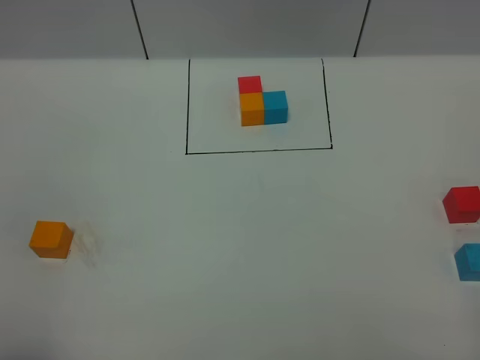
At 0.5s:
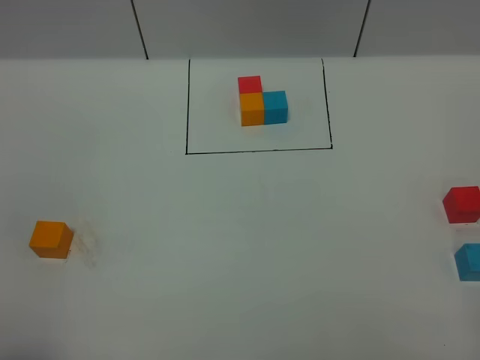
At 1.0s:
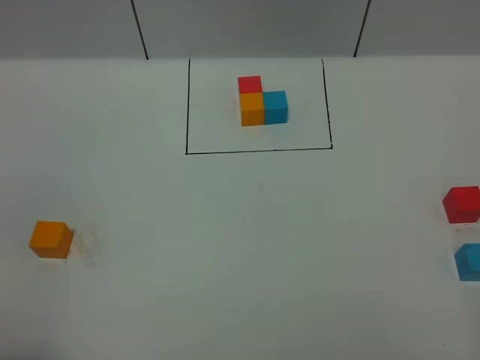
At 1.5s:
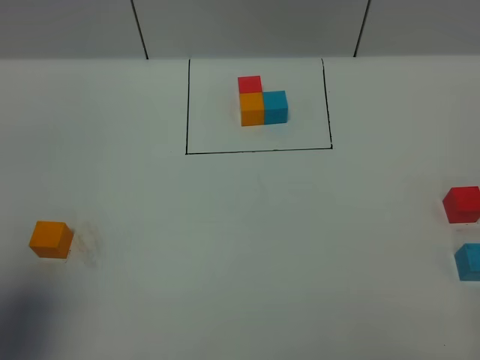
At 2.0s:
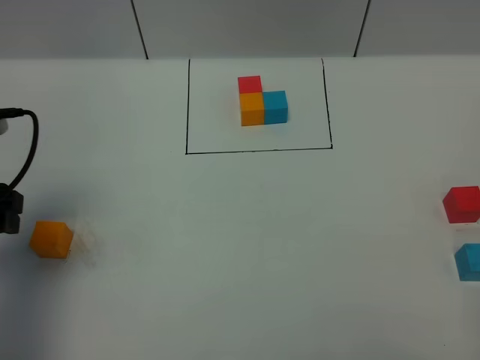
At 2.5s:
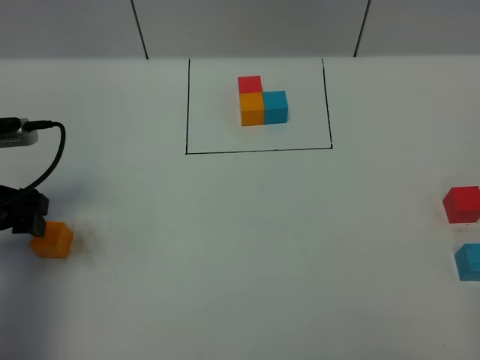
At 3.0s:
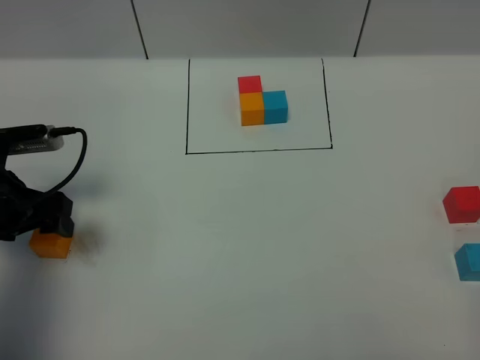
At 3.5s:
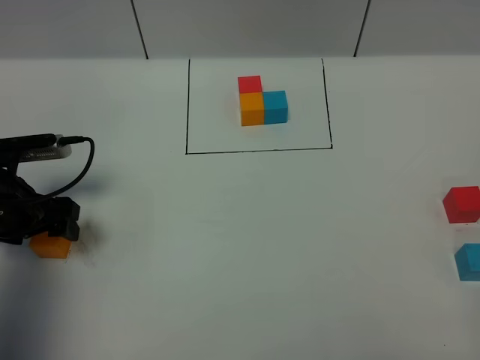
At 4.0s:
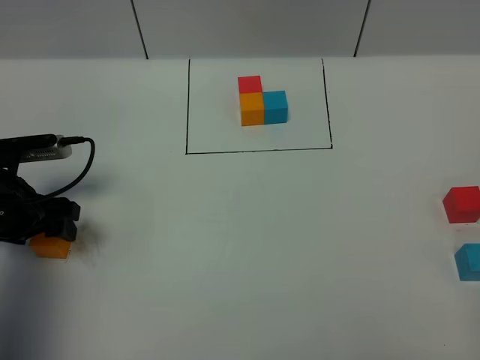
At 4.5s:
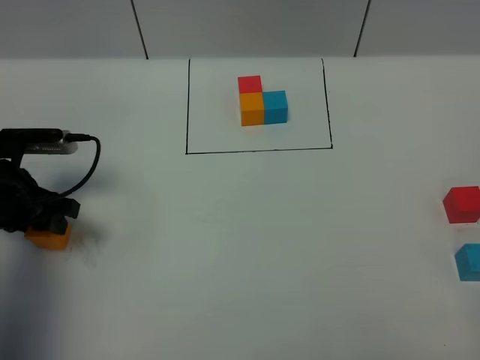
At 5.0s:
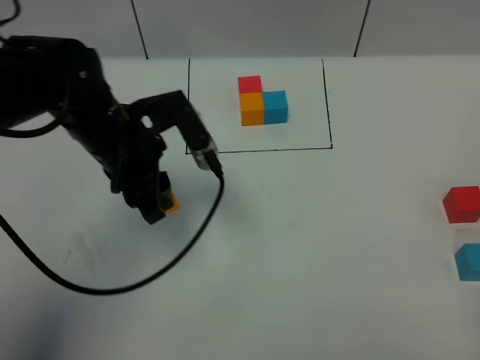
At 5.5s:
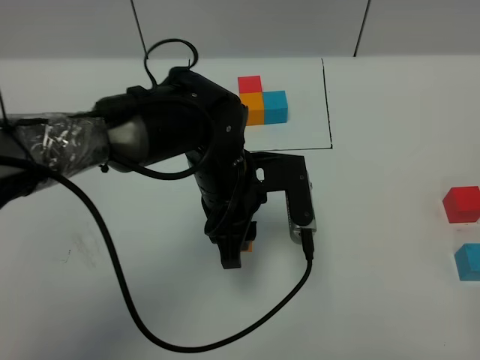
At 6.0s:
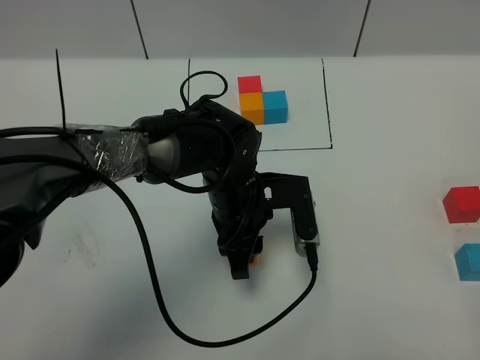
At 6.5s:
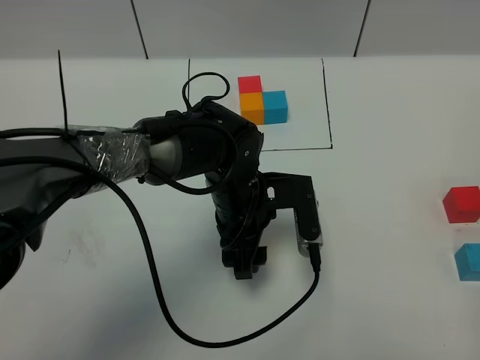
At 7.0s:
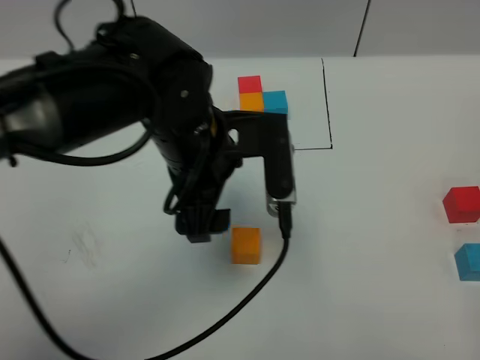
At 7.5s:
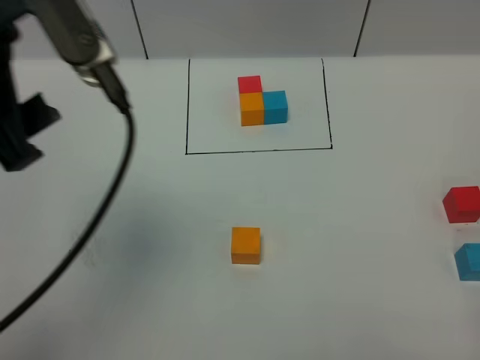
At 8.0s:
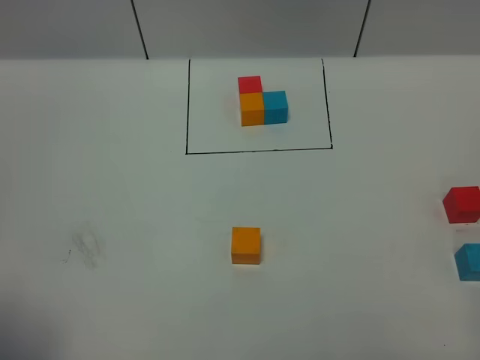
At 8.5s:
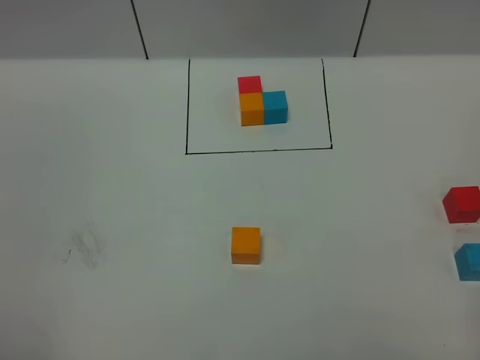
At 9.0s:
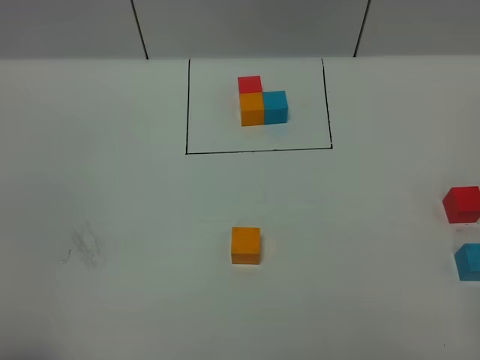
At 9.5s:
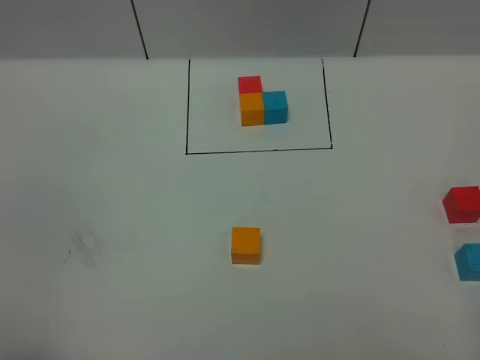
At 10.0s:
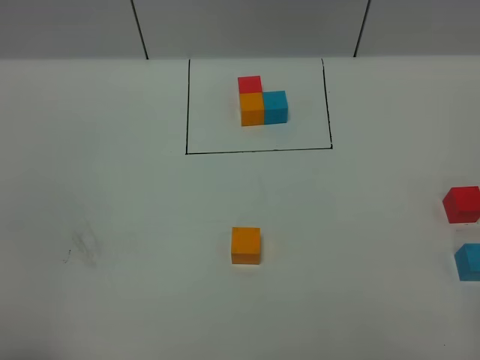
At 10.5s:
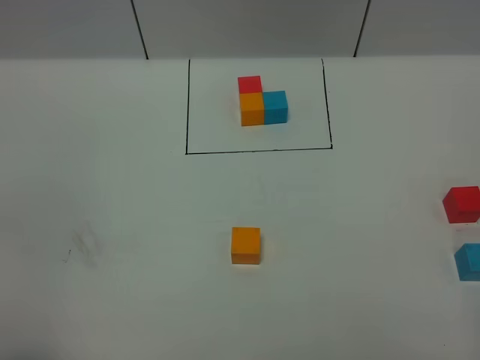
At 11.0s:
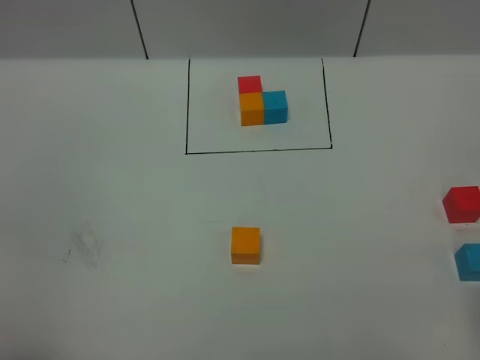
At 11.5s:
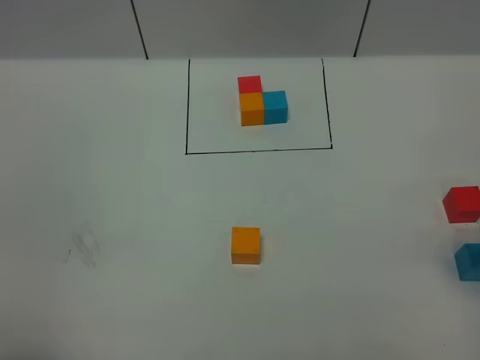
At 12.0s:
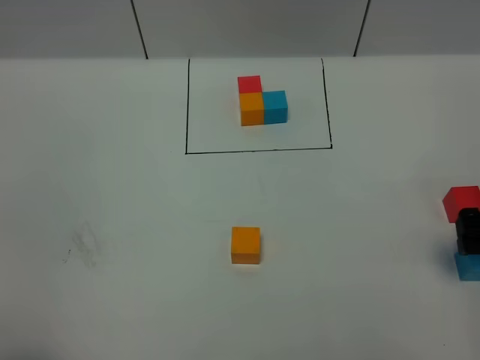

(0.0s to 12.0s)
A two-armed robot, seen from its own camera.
Task of the whole recording: According to the building block template in front, assemble the scattered blocks together.
Step, 2.0s - 6.5s: Put the orange cube in the center of the table.
0.0s - 2.0s: The left gripper travels forward by some 25 cm.
2.0s - 4.0s: The left gripper goes roughly 10 cm downward and forward.
4.0s - 6.0s: The left gripper moves to the right, roughly 30 cm, and closes its fingers.
6.0s - 8.0s: The left gripper heads to the left, upward and backward, covering approximately 50 cm, and opens its fingers.
10.0s - 12.0s: The right gripper goes roughly 25 cm forward and downward, and opens.

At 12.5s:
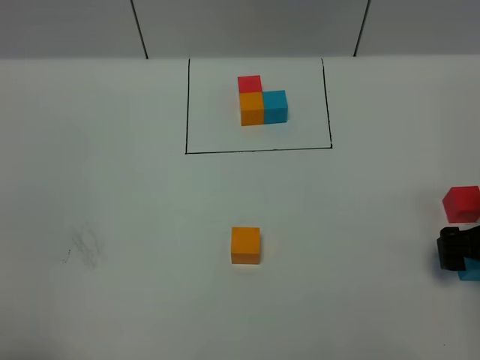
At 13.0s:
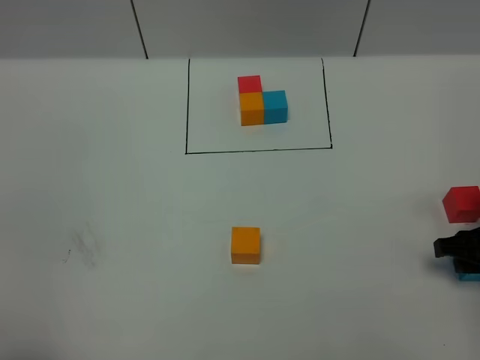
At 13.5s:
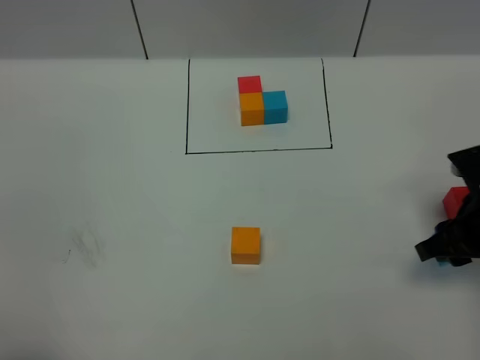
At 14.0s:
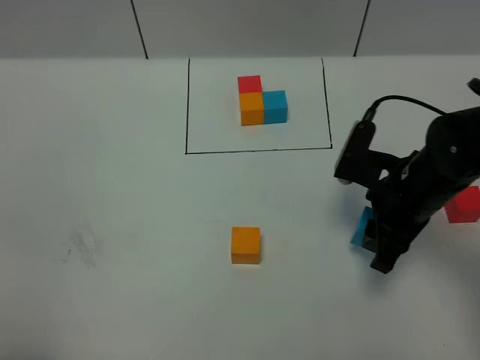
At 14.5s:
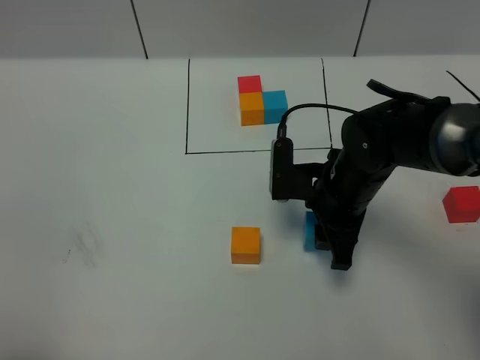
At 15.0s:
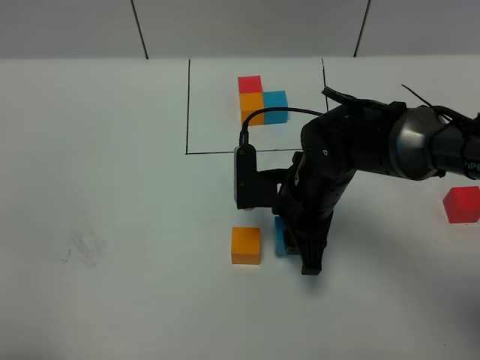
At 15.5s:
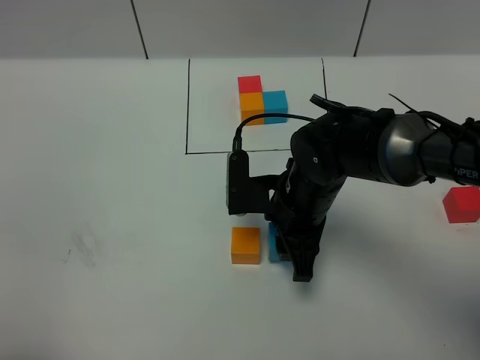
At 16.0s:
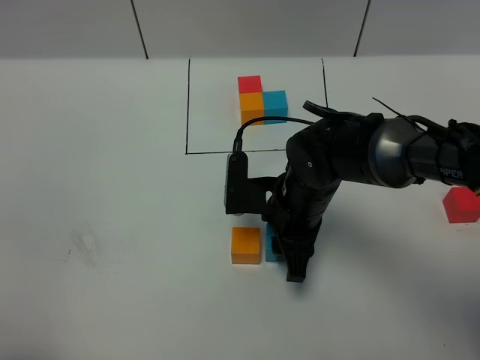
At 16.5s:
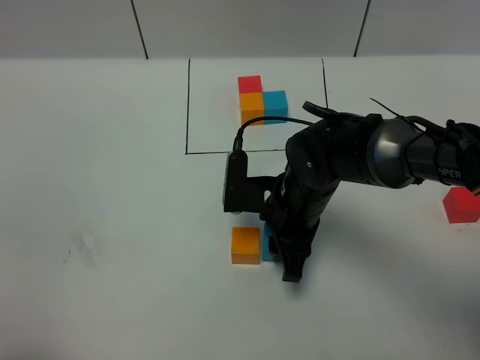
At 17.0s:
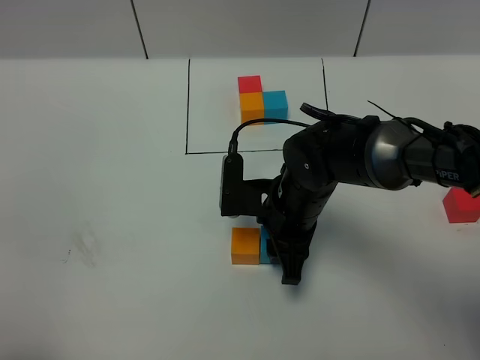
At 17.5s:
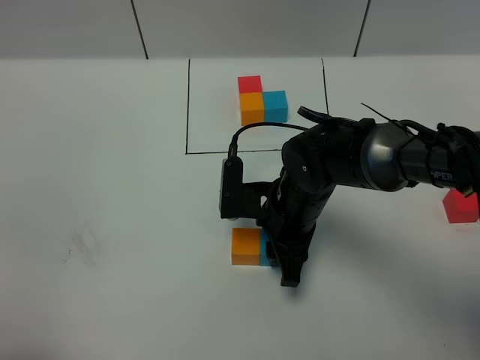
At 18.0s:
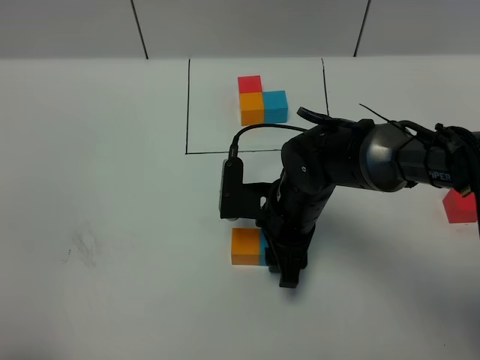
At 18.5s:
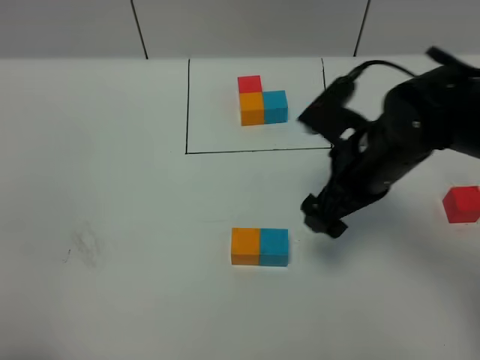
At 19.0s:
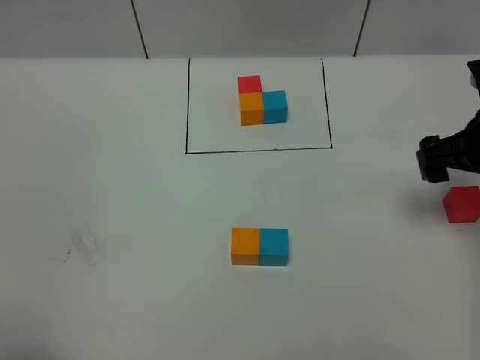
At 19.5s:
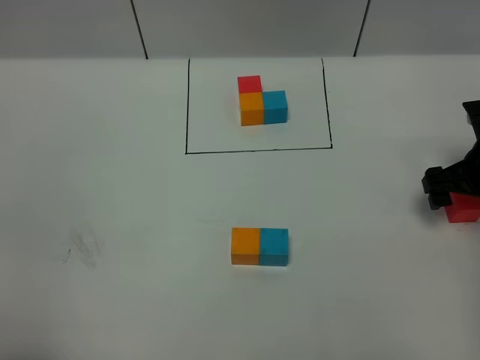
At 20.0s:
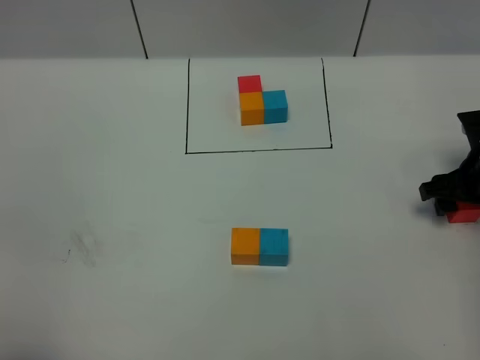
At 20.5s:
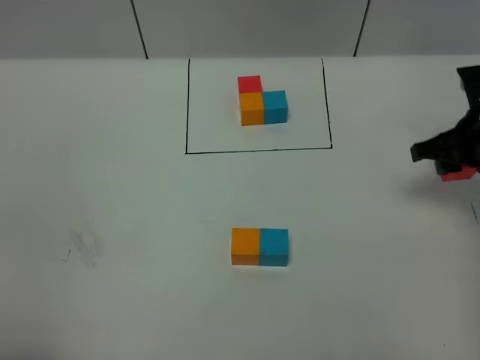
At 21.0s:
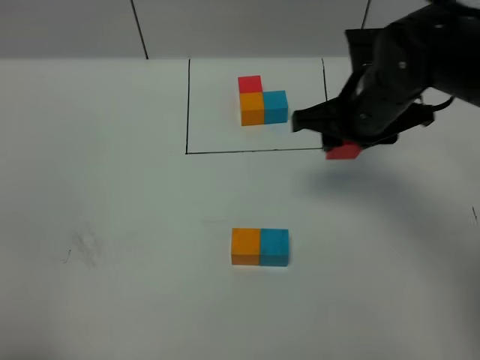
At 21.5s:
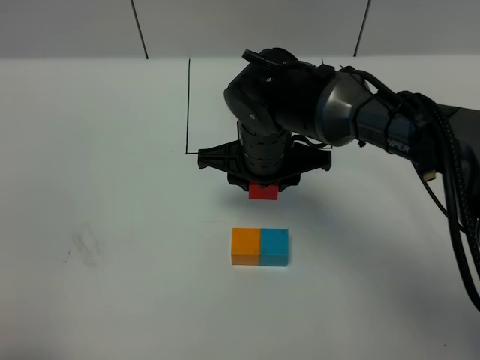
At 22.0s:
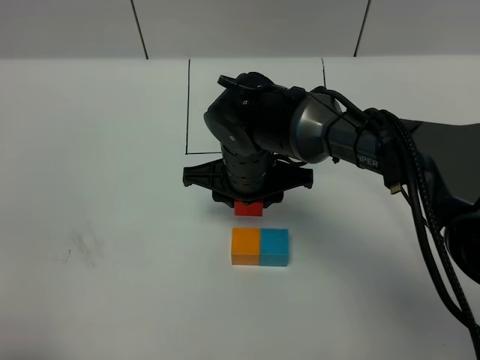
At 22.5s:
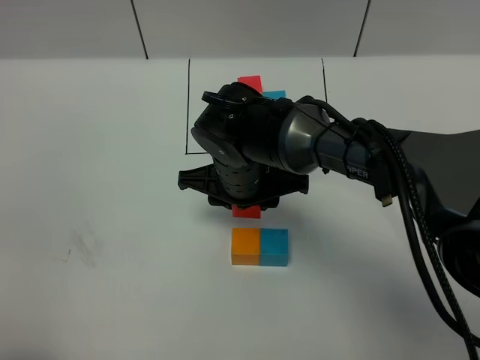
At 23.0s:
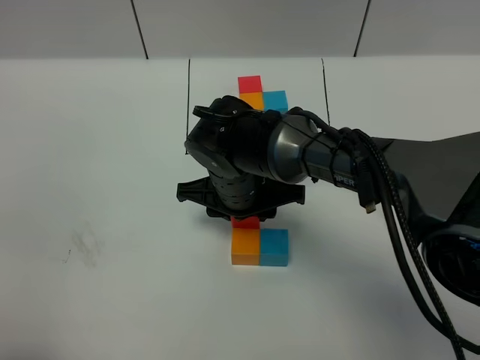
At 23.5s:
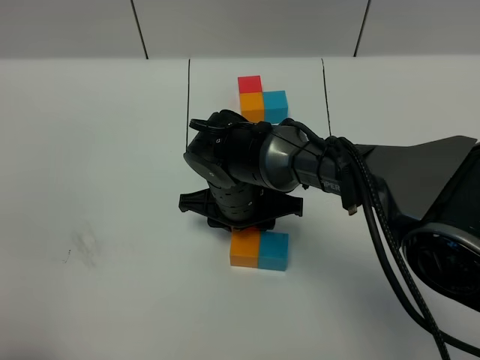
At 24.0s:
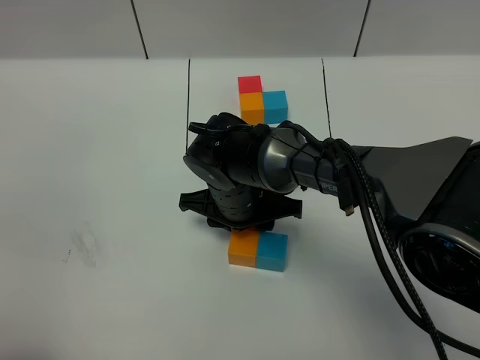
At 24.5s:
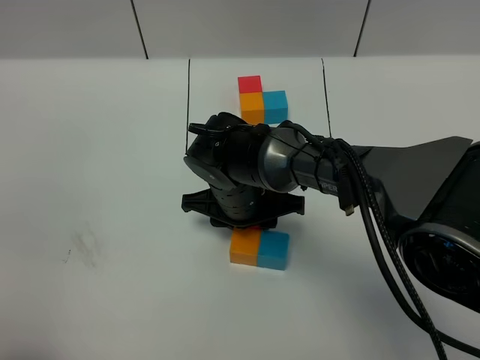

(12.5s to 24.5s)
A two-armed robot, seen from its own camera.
Task of the whole recording: According to the building block template in front, assemble the scattered blocks together.
Step, 12.5s - 18.0s: Put the blue cube on the right of the orange cube.
12.5s - 14.5s: The right gripper goes approximately 20 cm to the left, and closes up.
14.5s - 16.5s: The right gripper travels to the left by some 5 cm.
16.5s - 18.5s: The right gripper travels upward and to the right by approximately 10 cm, and opens.
18.5s - 20.5s: The right gripper travels to the right and forward by about 15 cm, and closes.
20.5s - 22.5s: The right gripper shifts some 30 cm to the left.
22.5s - 24.5s: There are only small adjustments of the grippers.

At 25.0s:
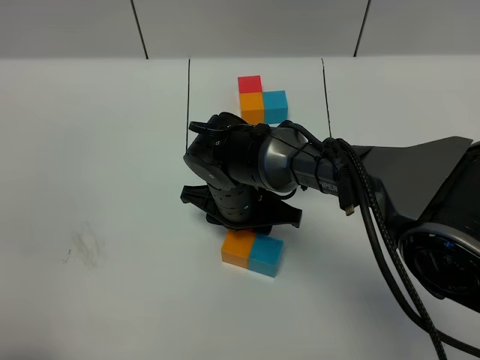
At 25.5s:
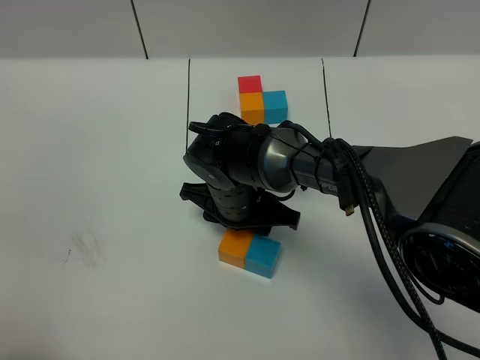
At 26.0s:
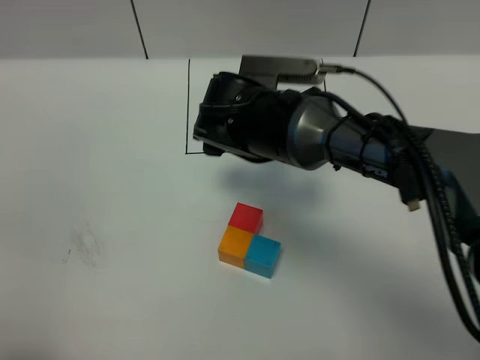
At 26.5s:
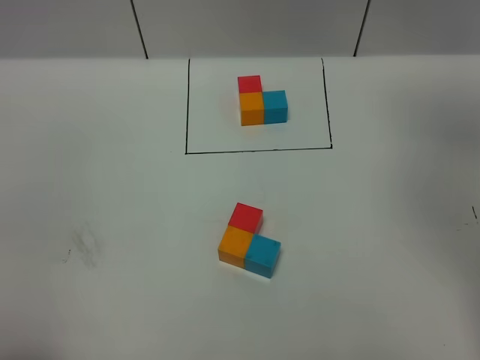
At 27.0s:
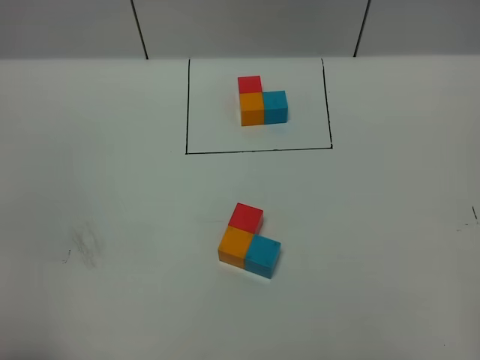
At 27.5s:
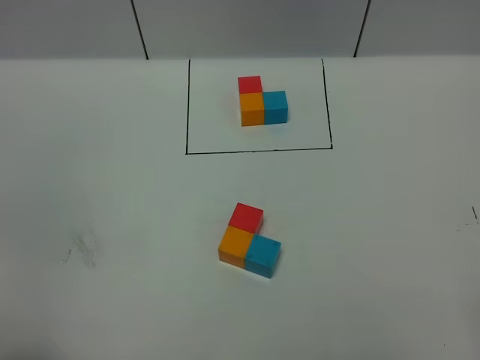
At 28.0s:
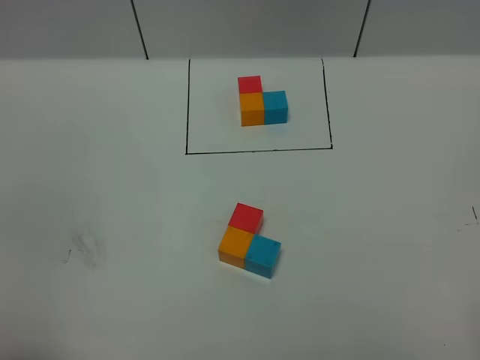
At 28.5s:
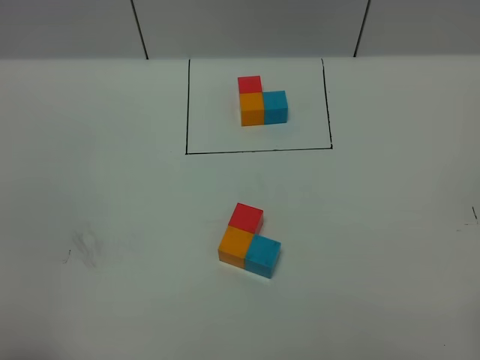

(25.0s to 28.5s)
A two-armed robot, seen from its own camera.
Task of the whole recording: According to the building block template in front, assemble the scattered blocks together.
25.0s - 27.0s: The right gripper moves upward and to the right, some 50 cm, and opens.
